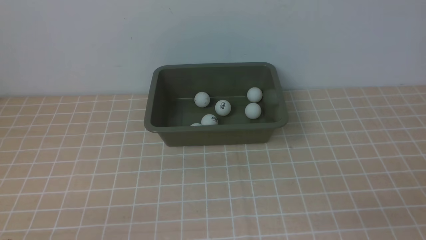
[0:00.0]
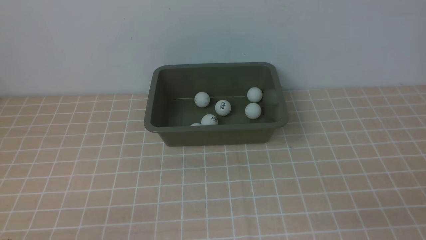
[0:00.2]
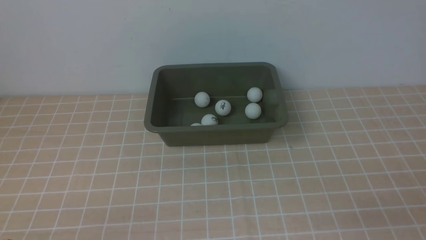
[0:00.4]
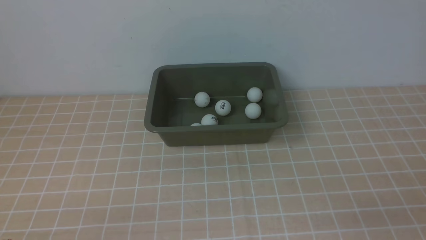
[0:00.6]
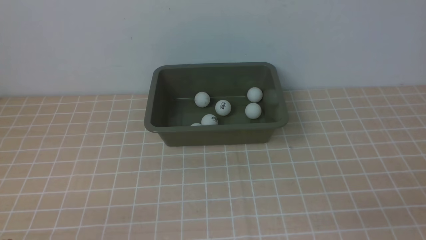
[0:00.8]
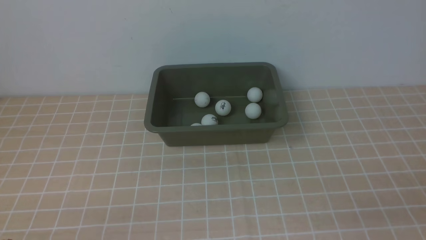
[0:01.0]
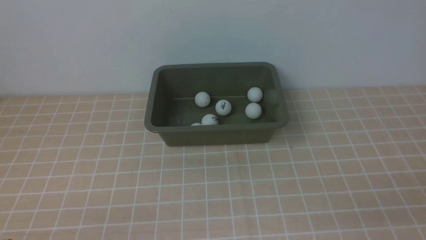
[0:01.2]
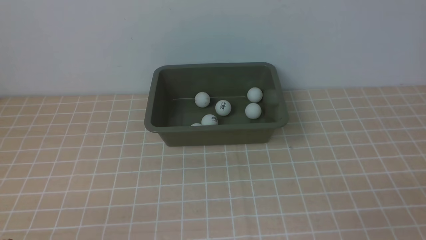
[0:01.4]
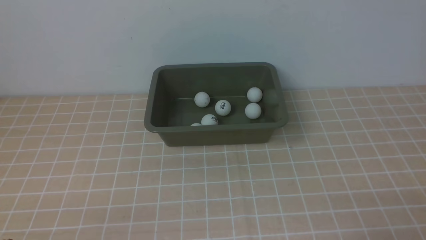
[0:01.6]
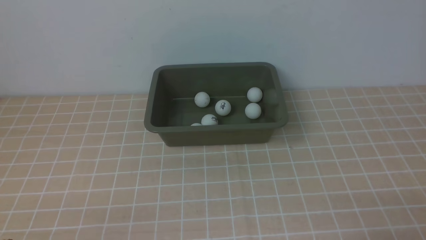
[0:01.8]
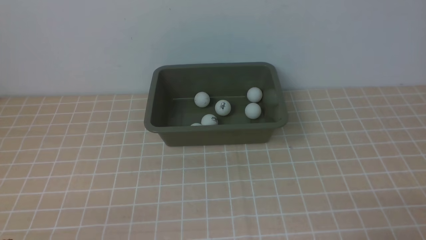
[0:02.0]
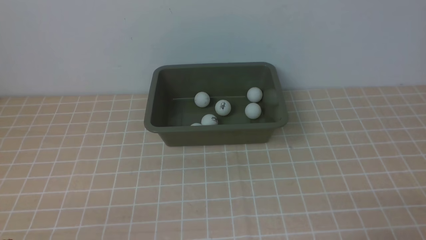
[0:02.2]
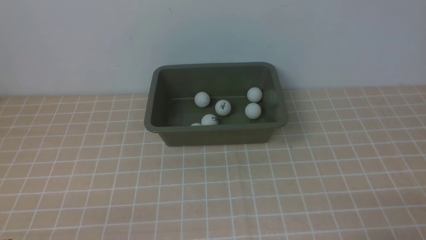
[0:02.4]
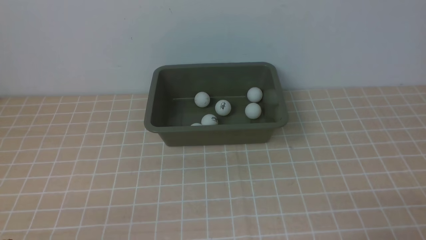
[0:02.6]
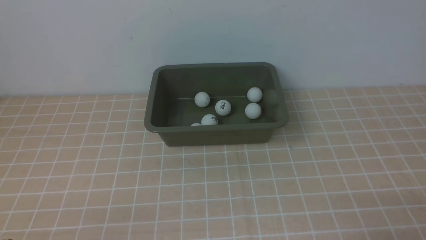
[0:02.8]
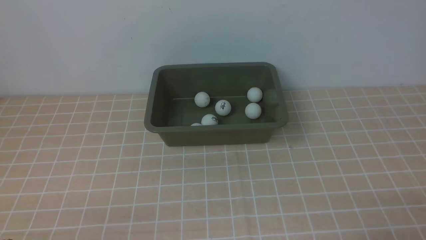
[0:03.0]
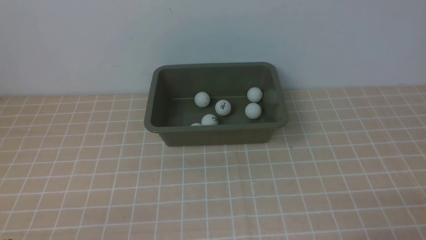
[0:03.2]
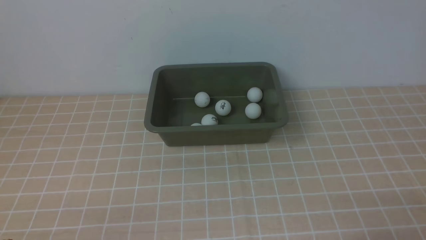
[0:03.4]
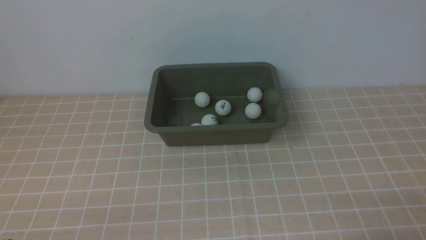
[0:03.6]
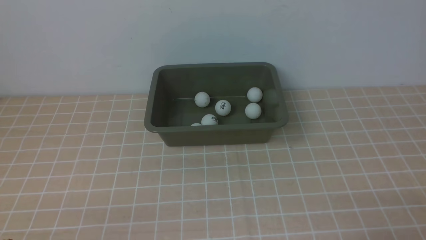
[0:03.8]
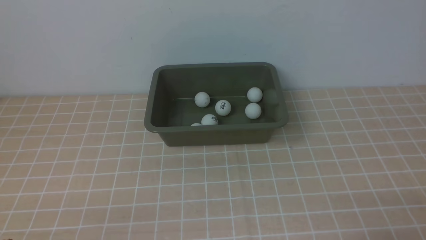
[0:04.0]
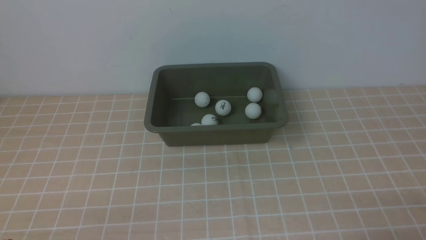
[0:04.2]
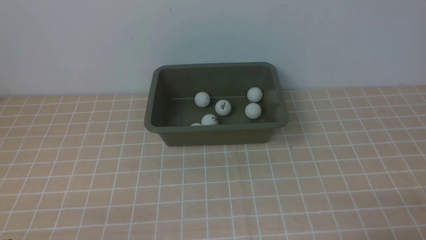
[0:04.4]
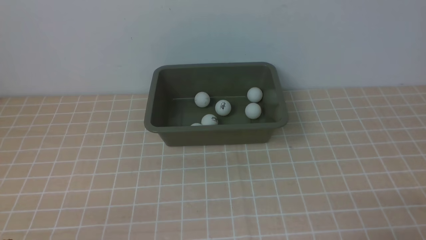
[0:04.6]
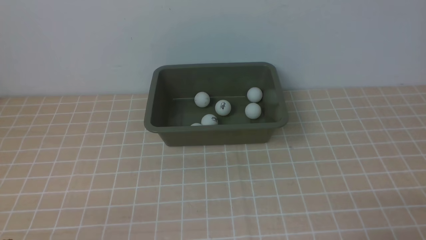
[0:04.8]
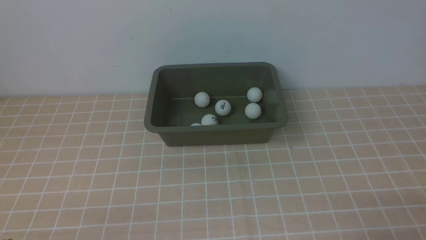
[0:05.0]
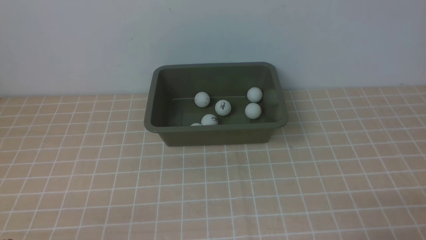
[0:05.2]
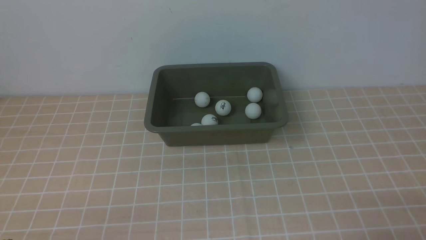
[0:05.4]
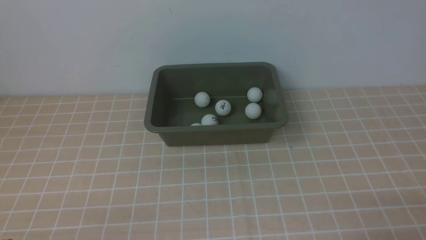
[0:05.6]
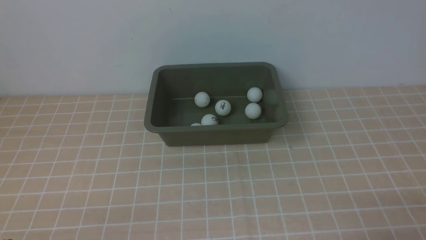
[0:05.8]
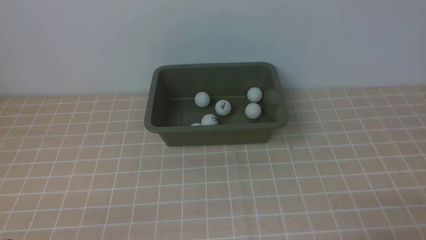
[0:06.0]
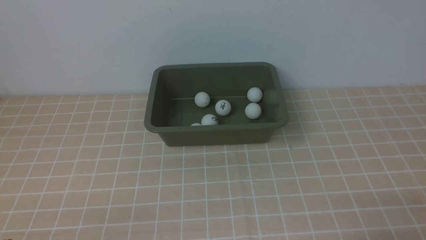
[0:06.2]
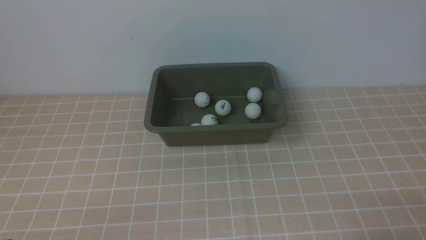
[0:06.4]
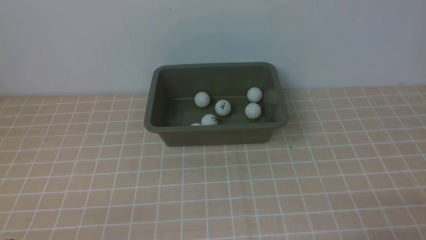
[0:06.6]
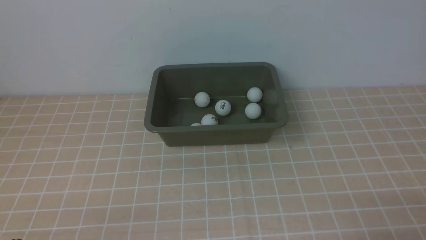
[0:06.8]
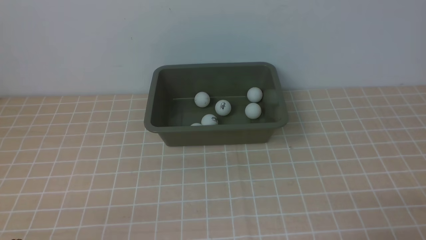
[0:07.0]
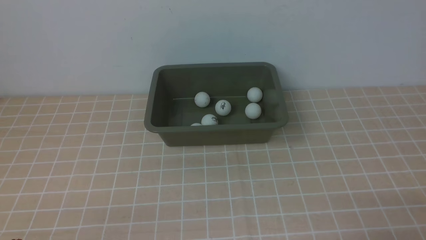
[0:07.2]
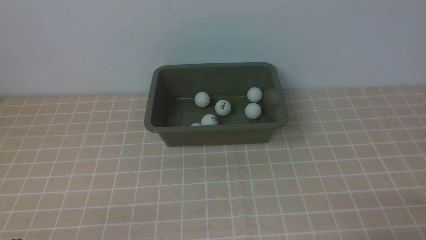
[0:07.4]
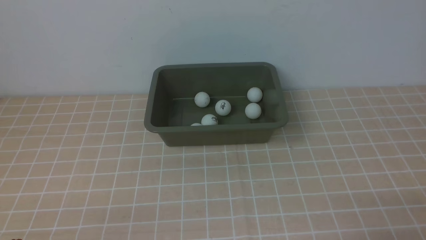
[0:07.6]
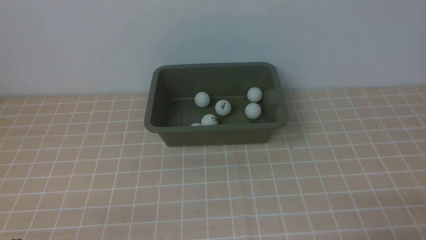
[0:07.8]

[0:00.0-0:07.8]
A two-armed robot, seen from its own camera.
0:01.6 to 0:03.2: Both grippers stay put.
0:03.2 to 0:07.8: Neither gripper changes place.
